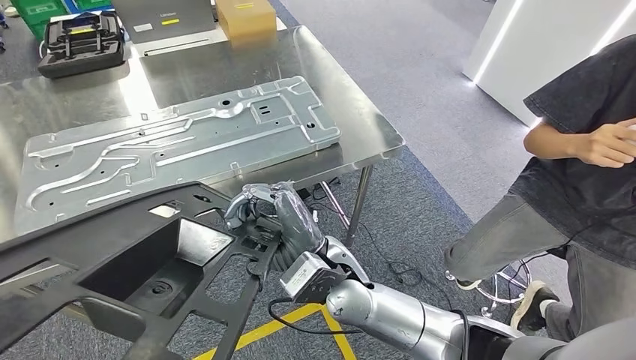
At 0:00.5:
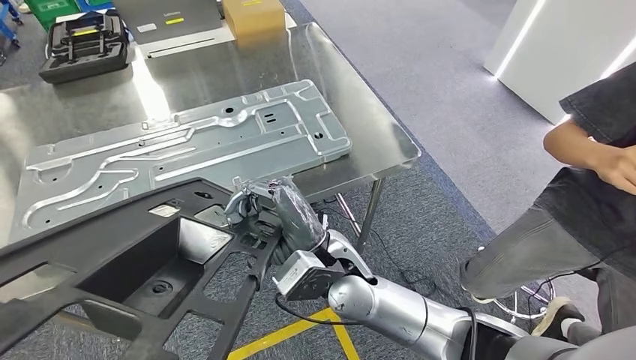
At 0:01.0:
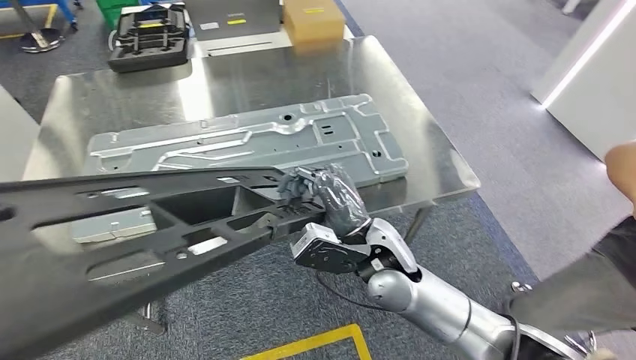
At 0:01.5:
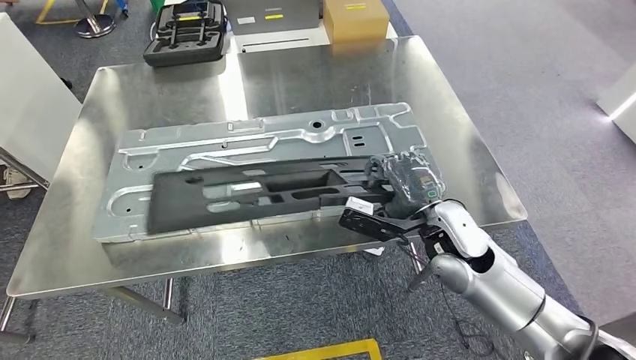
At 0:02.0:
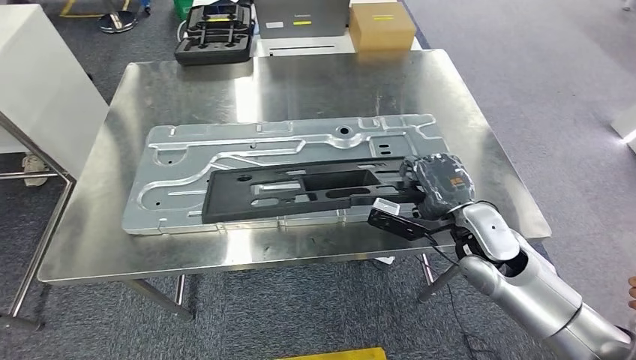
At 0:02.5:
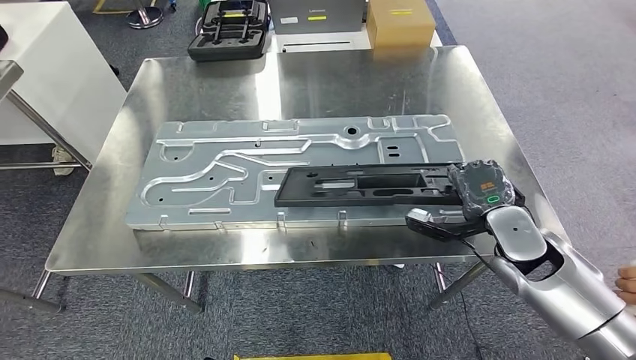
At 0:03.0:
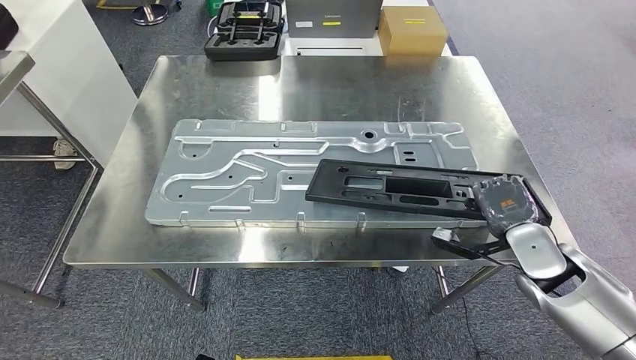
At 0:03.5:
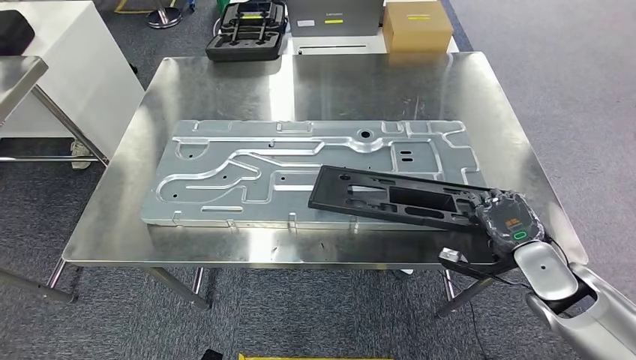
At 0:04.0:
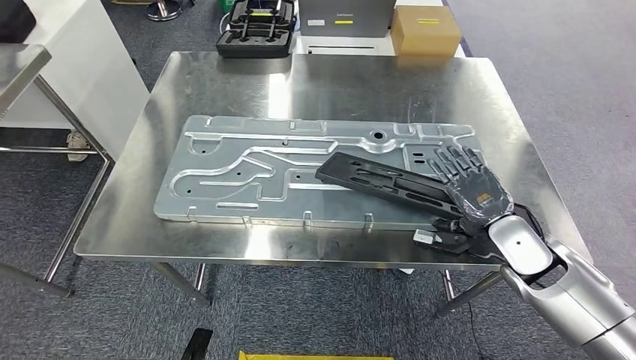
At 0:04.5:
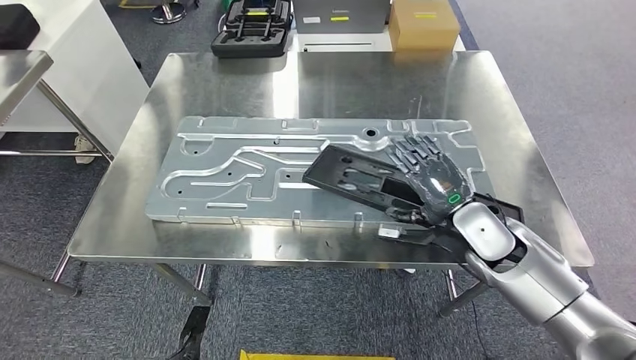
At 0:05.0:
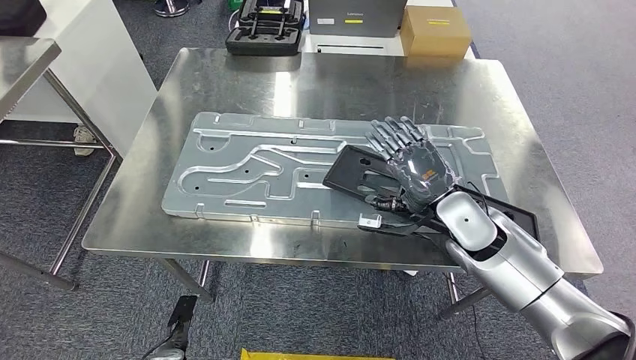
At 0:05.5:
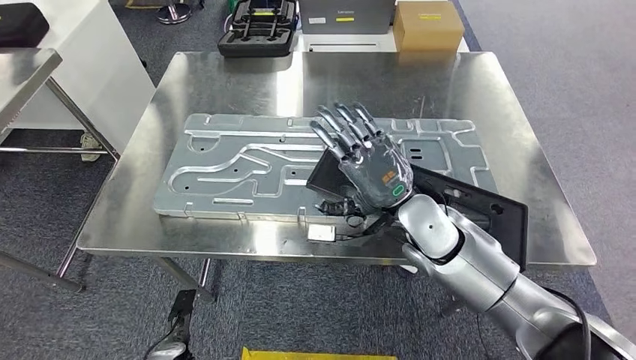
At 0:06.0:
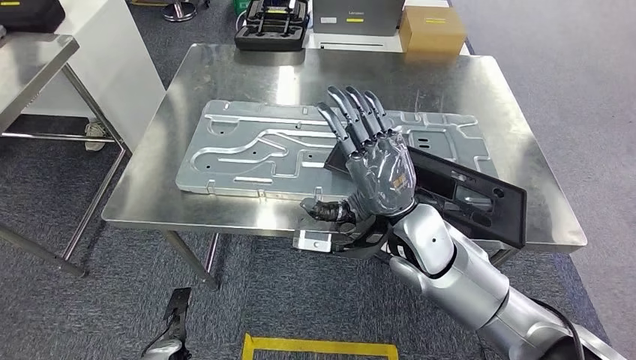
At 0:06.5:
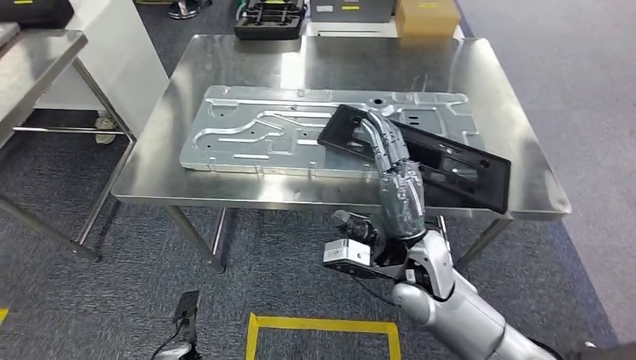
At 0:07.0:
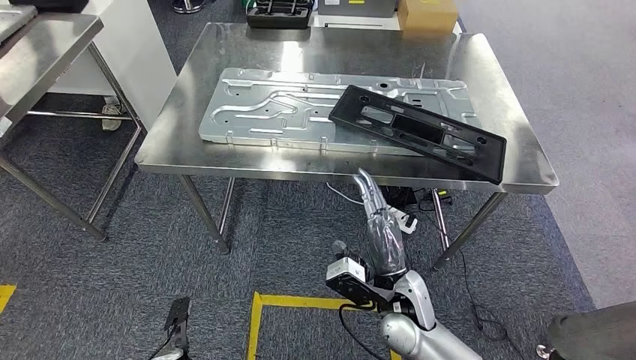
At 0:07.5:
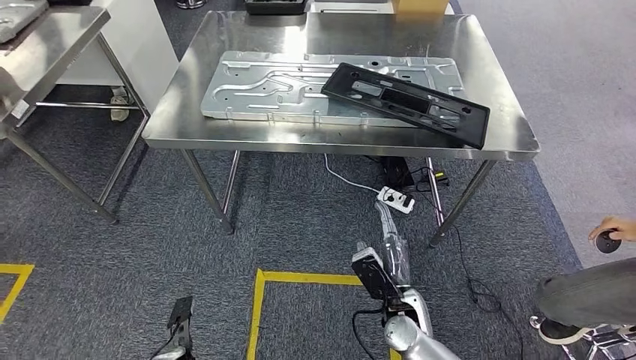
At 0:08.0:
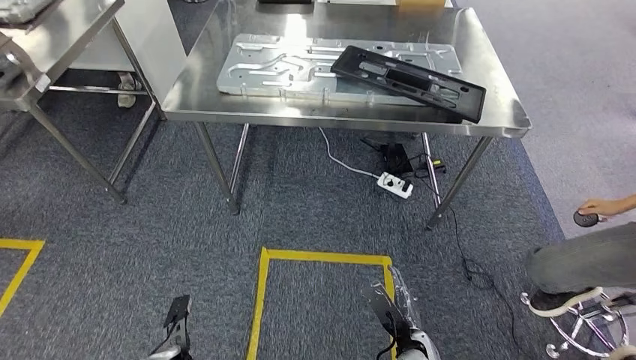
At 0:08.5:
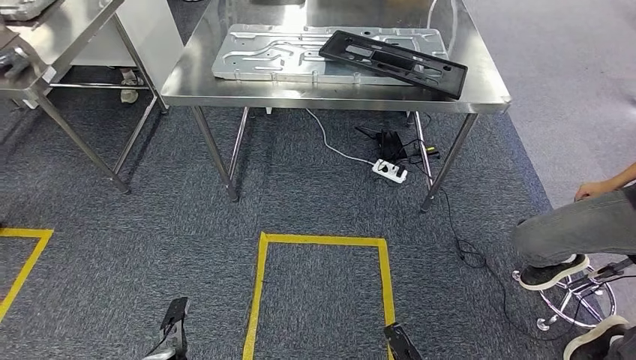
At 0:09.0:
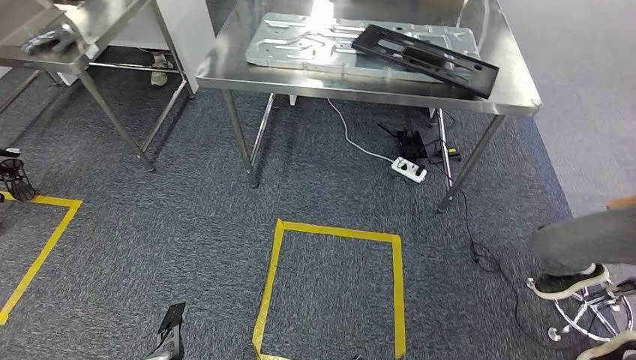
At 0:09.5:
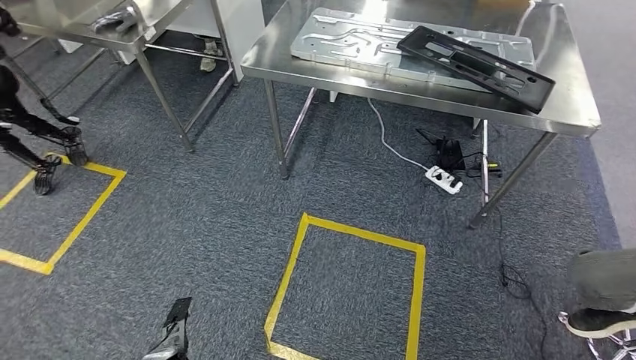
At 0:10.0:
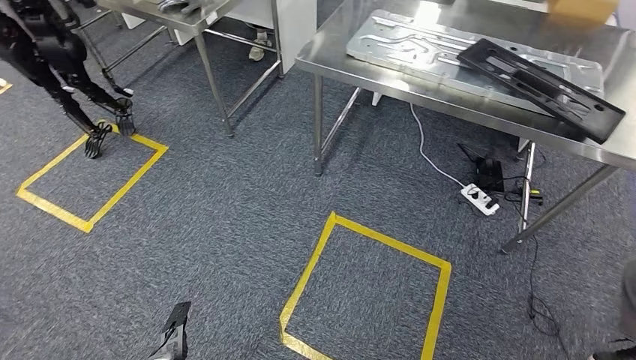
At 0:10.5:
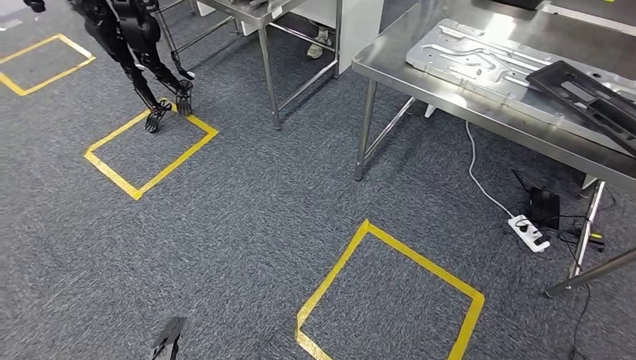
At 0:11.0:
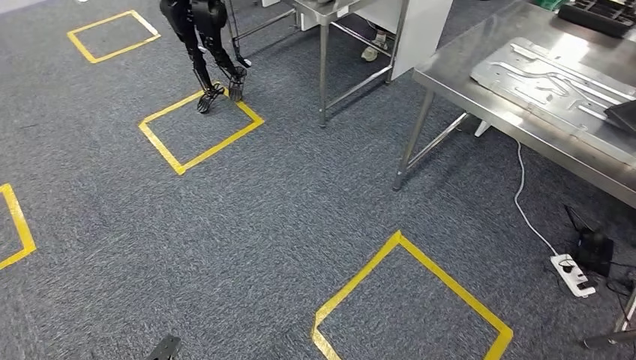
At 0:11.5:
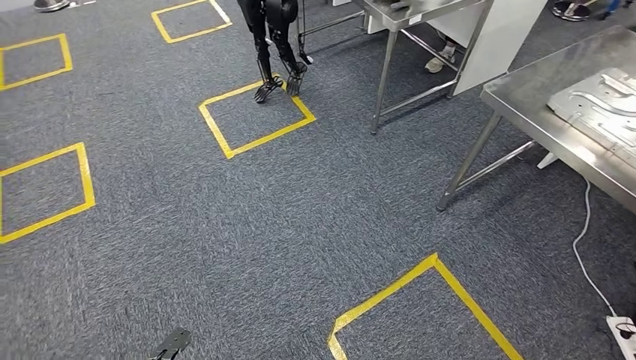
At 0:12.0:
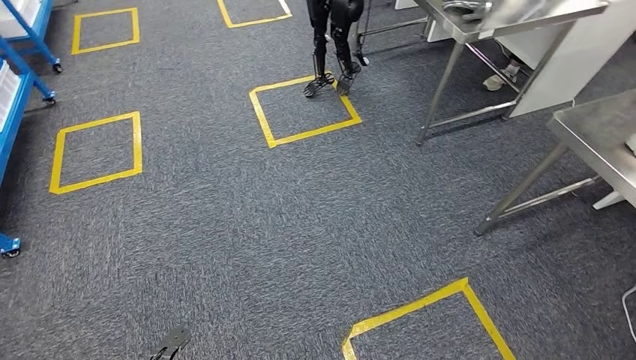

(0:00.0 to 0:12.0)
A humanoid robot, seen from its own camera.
Step, 0:00.0 - 0:04.0: Insert the large material into the corresponding slot on the workbench.

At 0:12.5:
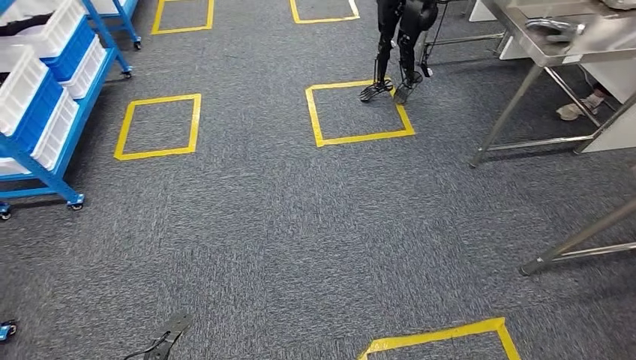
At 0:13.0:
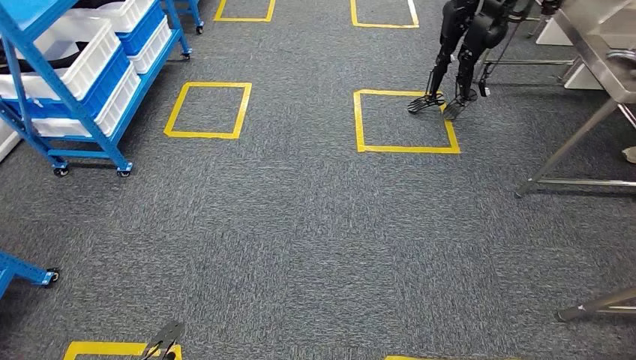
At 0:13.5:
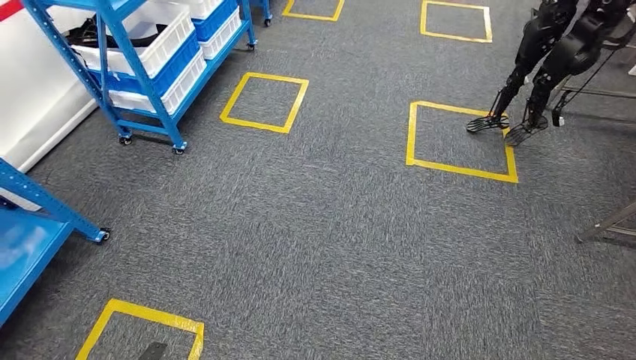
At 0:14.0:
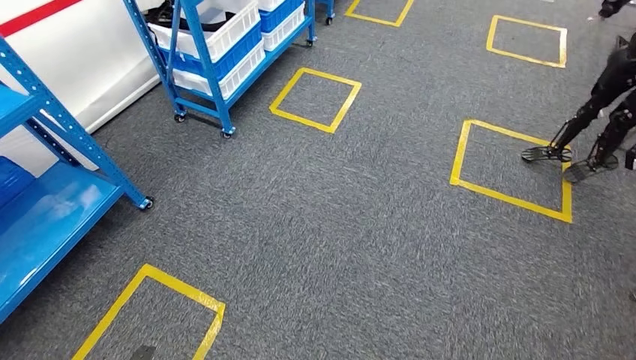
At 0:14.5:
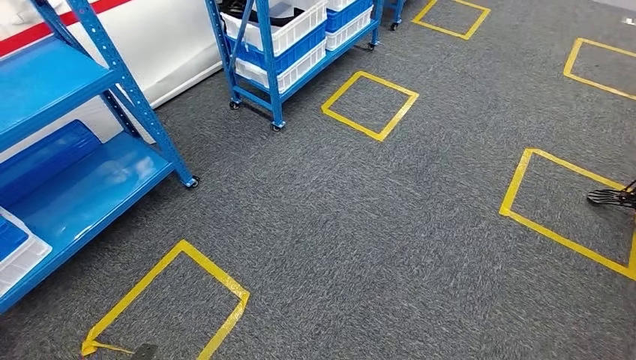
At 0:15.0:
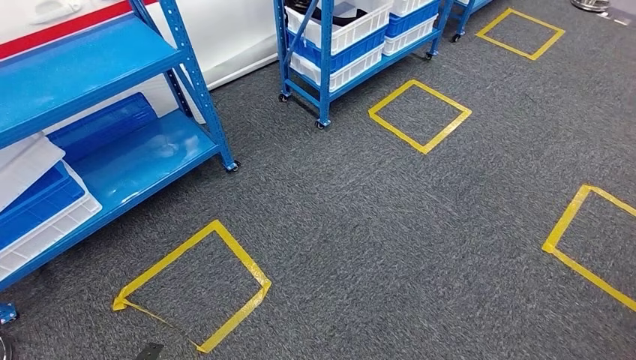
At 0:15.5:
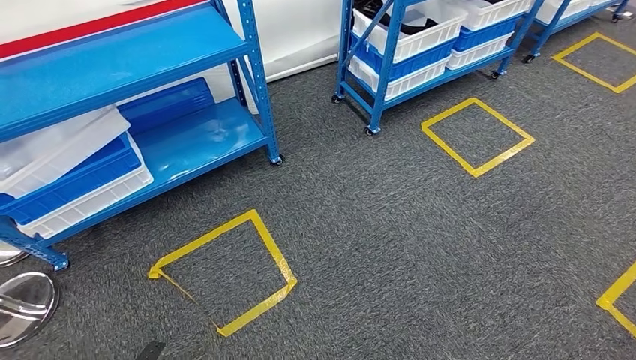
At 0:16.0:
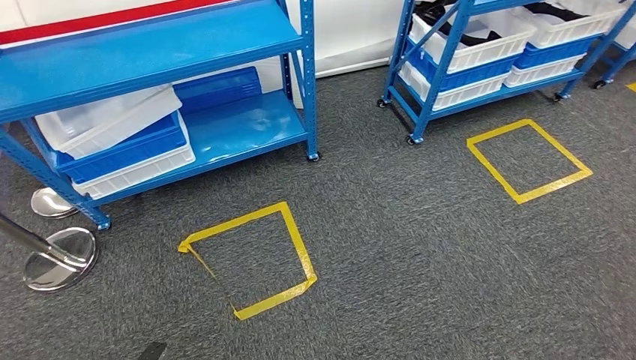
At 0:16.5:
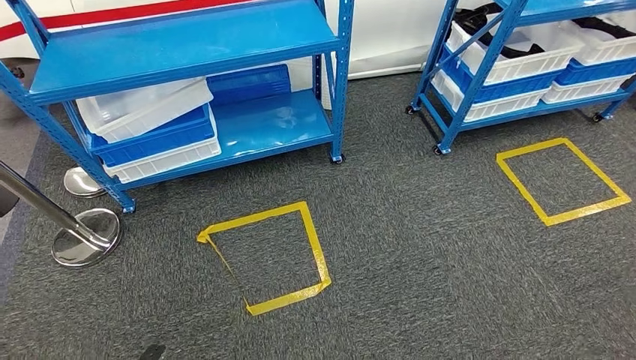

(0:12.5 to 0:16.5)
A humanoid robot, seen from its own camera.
Step, 0:12.5 - 0:16.5: Move to the initial position of the shelf.
